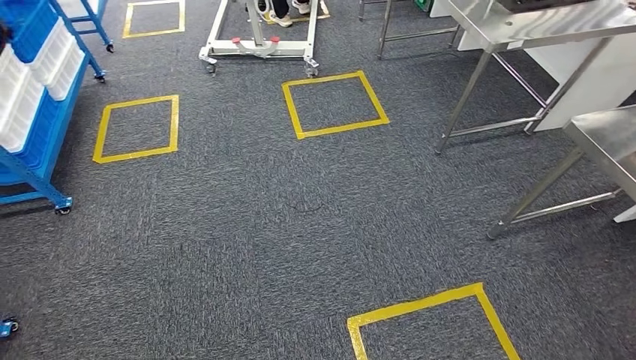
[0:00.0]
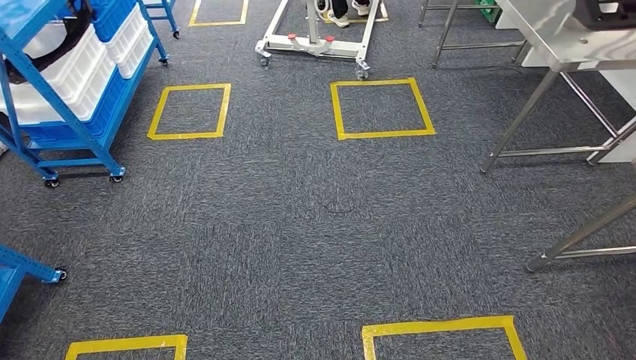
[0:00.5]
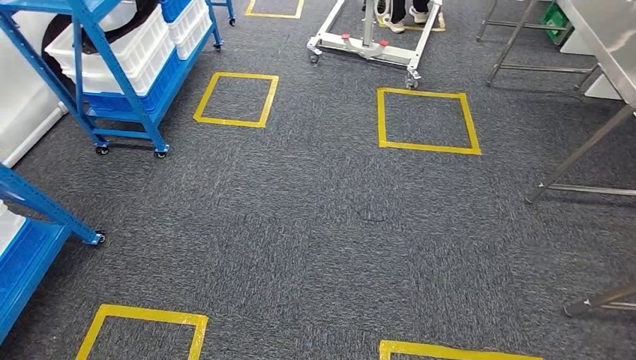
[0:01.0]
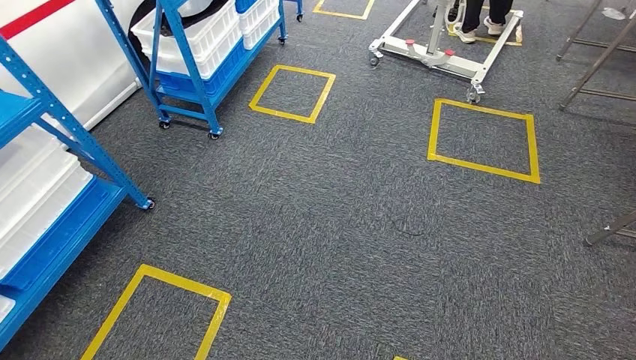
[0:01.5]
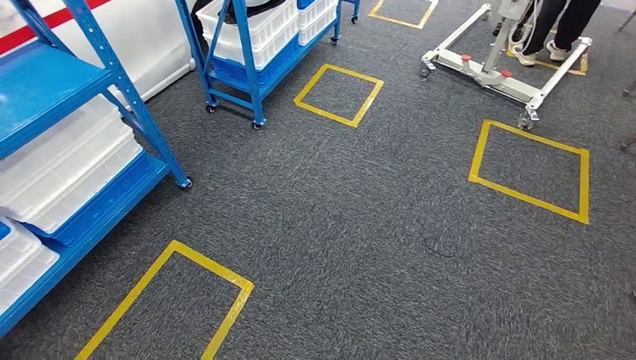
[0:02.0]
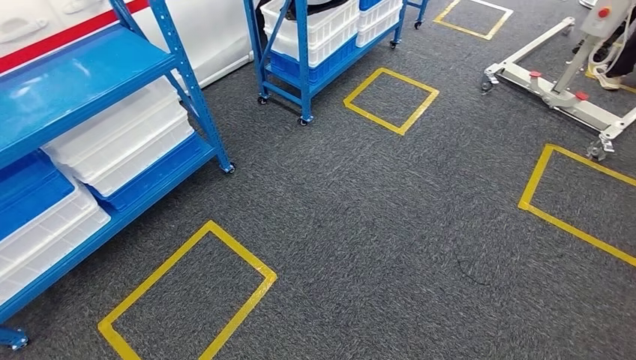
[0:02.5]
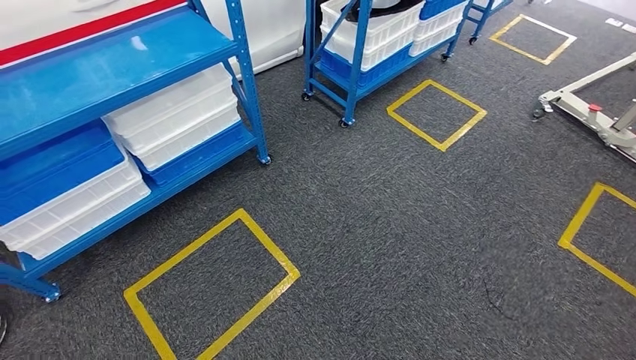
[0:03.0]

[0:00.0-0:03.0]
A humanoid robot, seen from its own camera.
Step, 0:00.0 to 0:03.0: Return to the initial position at the shelf.

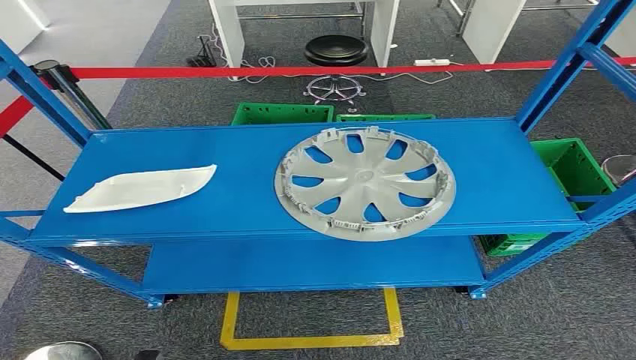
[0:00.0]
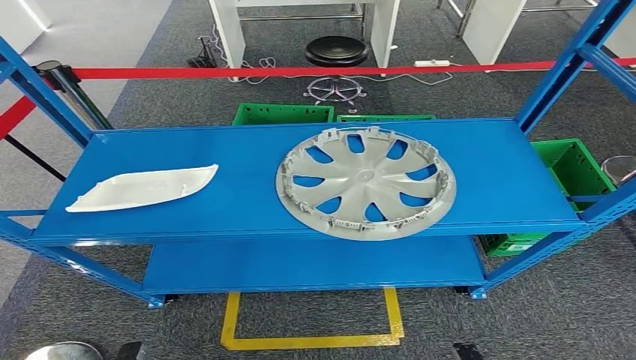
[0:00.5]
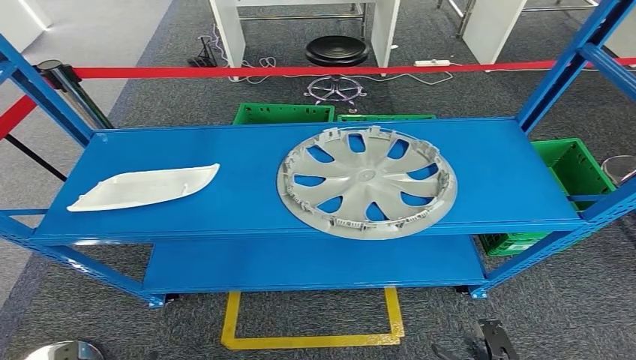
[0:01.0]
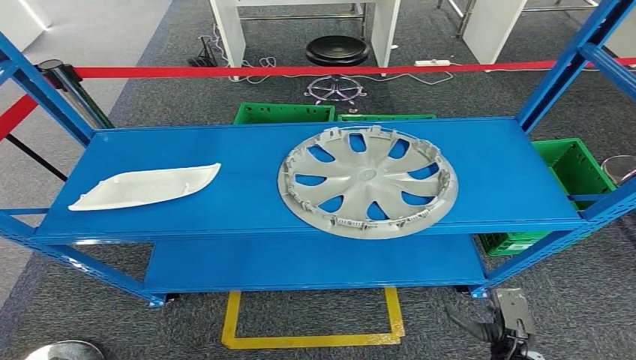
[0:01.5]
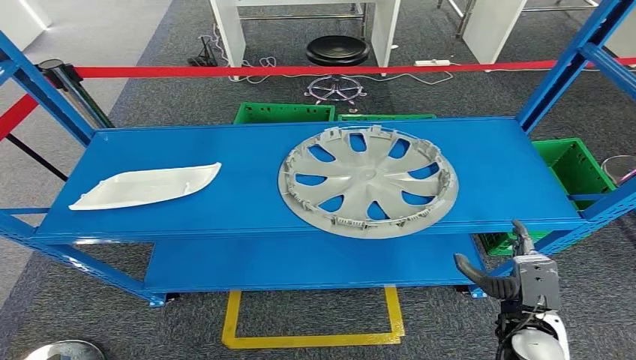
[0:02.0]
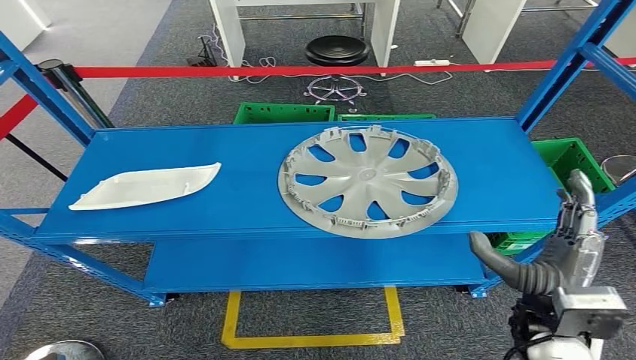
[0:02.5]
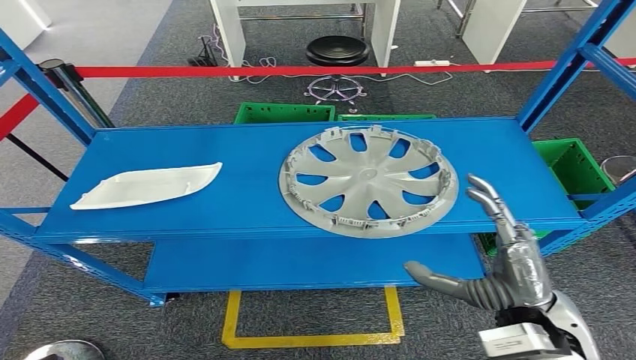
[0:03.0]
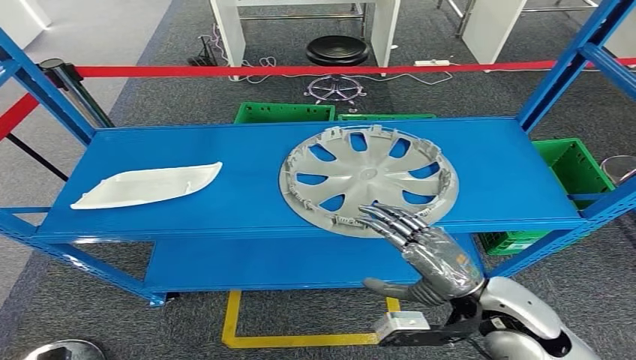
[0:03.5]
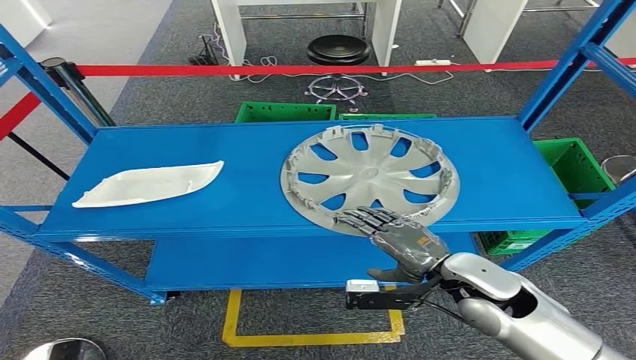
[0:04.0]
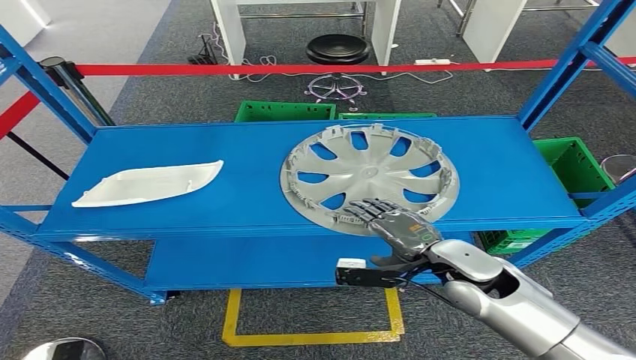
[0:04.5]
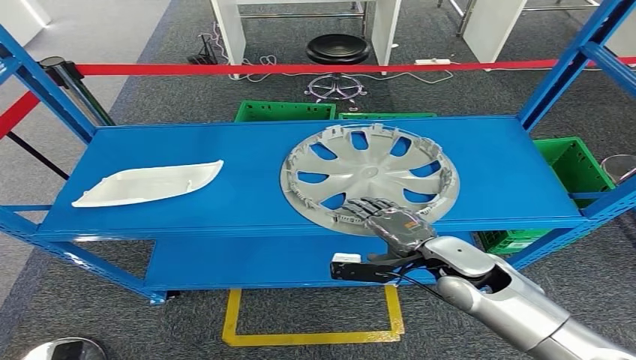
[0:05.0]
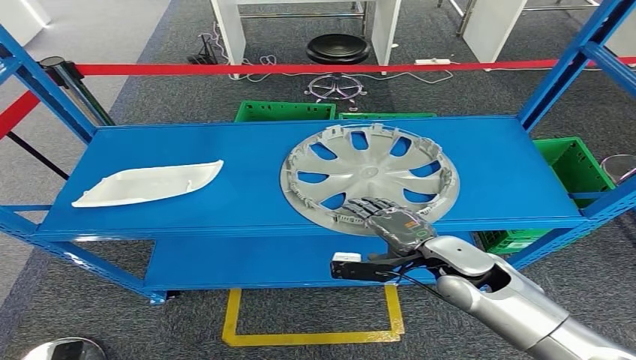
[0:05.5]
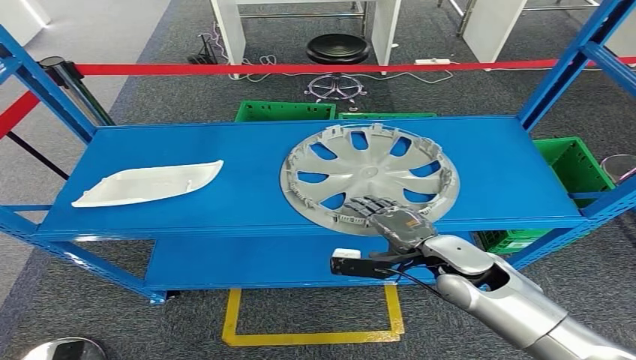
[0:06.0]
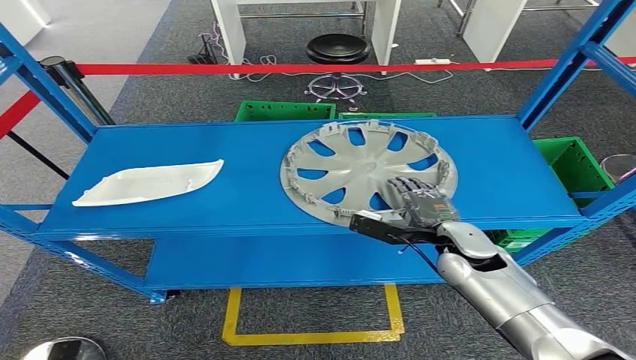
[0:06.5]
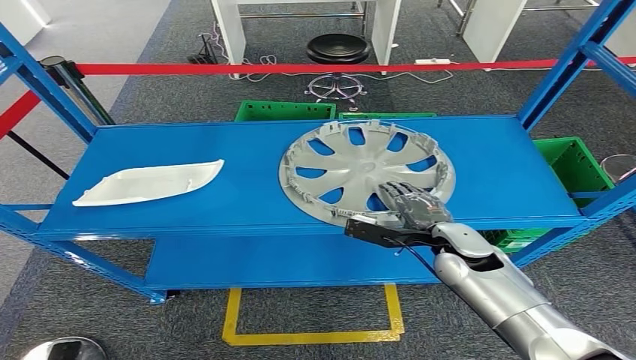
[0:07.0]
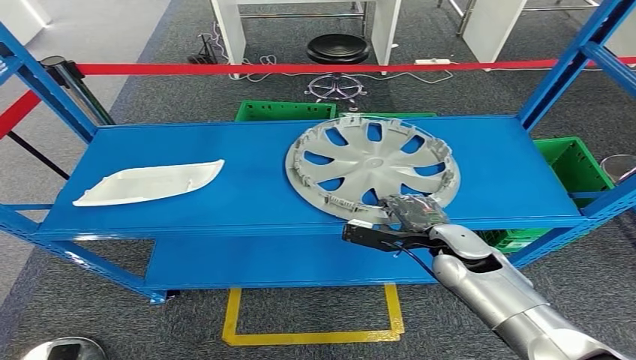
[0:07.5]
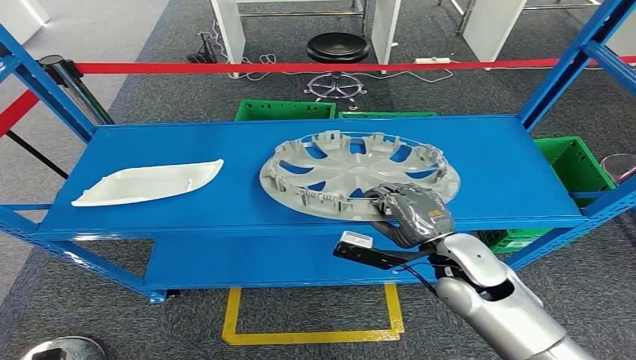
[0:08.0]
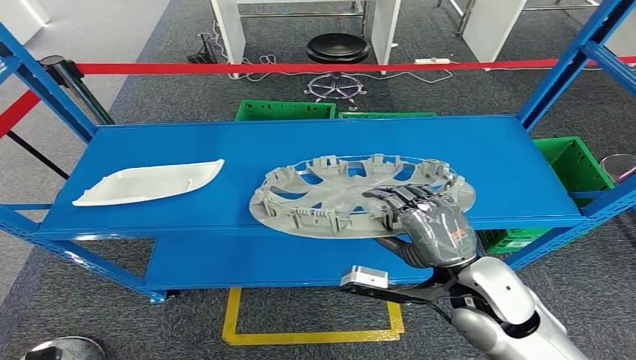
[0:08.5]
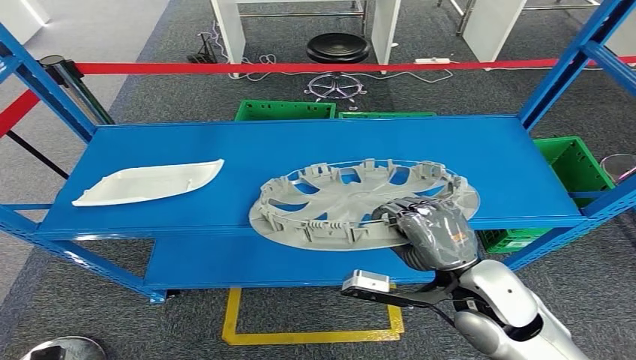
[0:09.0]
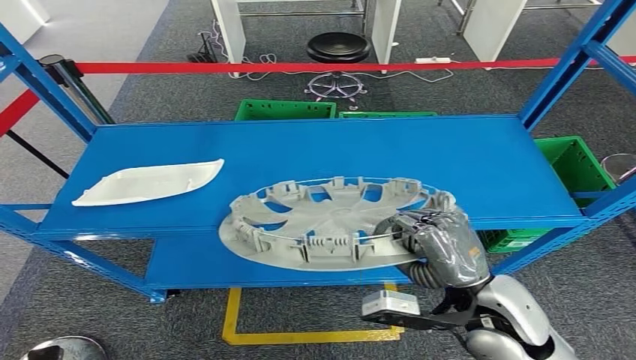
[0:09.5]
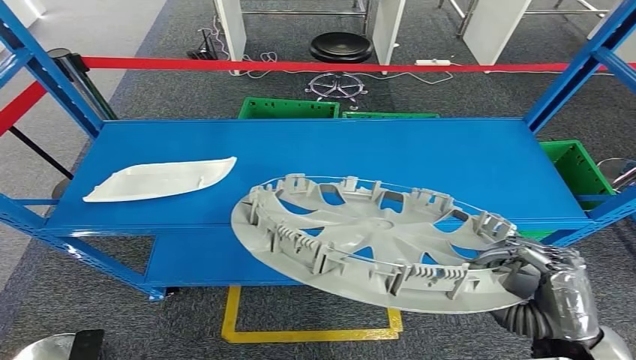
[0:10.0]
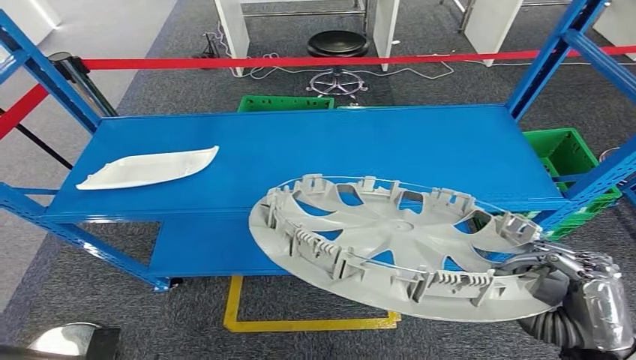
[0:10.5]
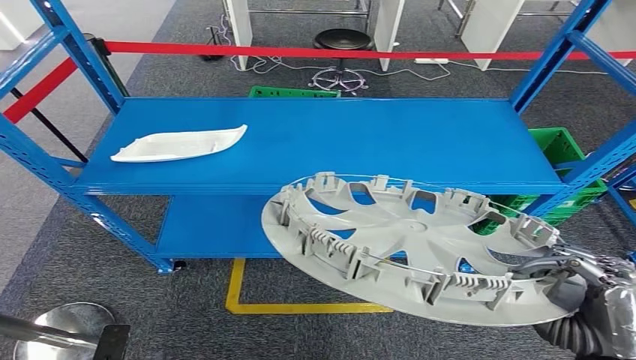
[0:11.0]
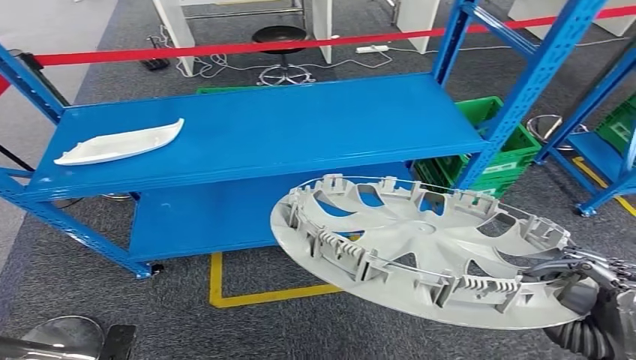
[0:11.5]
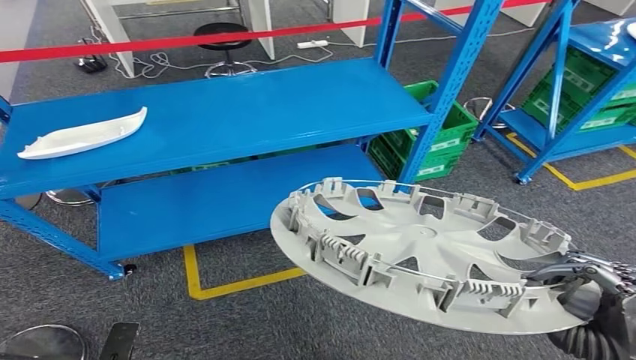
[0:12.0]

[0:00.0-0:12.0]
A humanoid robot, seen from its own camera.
Step, 0:00.0 to 0:11.0: Pick up the small parts from the shelf.
0:02.0 to 0:04.0: The right hand goes approximately 15 cm upward, forward and to the left.
0:04.0 to 0:06.0: There are only small adjustments of the hands.

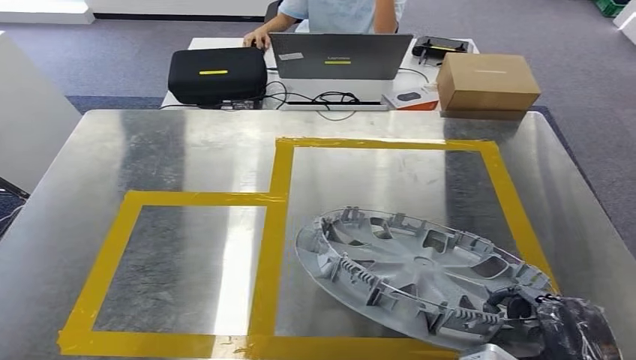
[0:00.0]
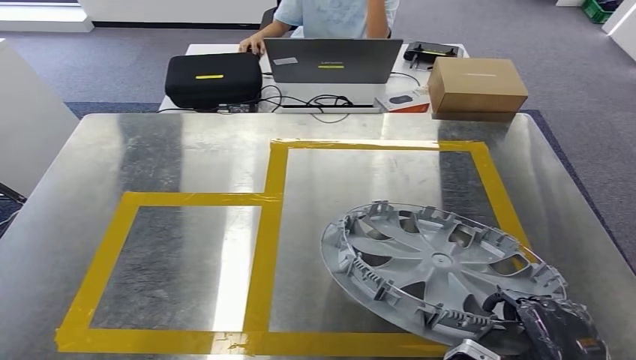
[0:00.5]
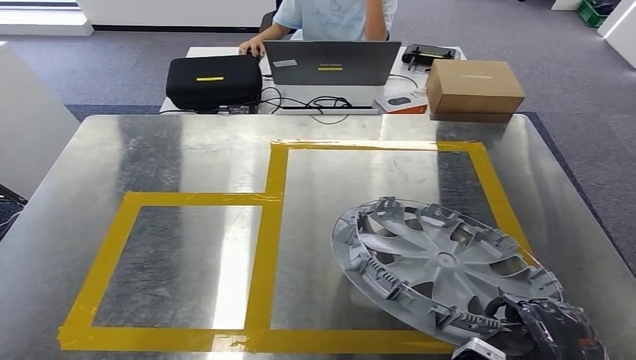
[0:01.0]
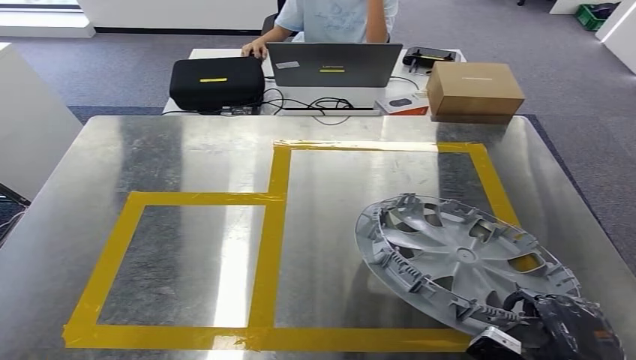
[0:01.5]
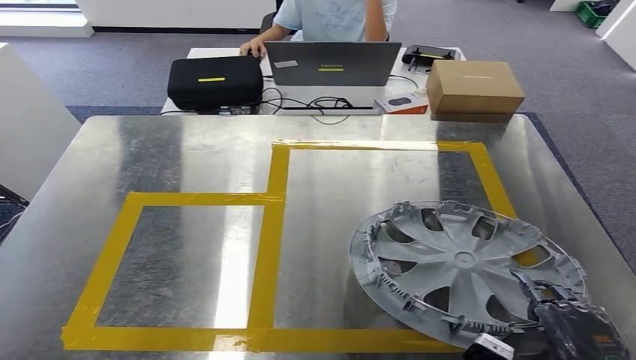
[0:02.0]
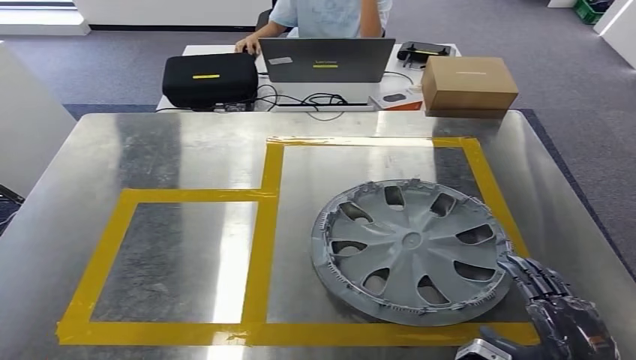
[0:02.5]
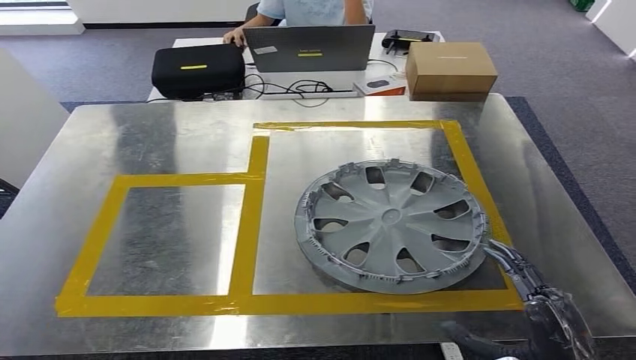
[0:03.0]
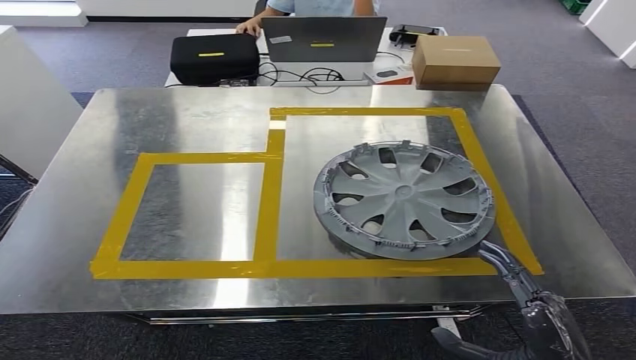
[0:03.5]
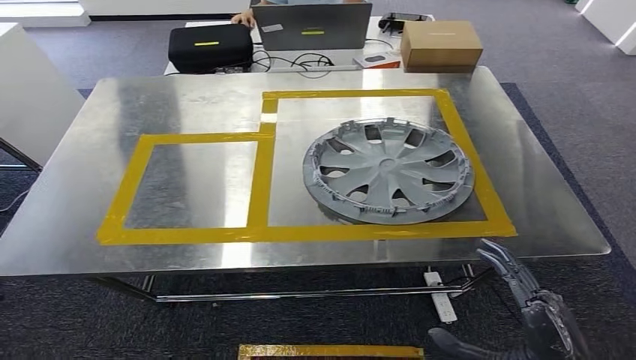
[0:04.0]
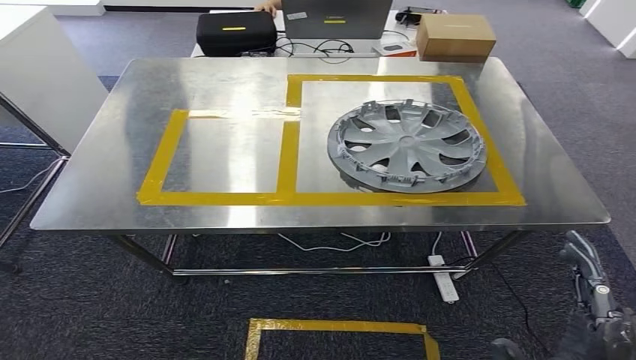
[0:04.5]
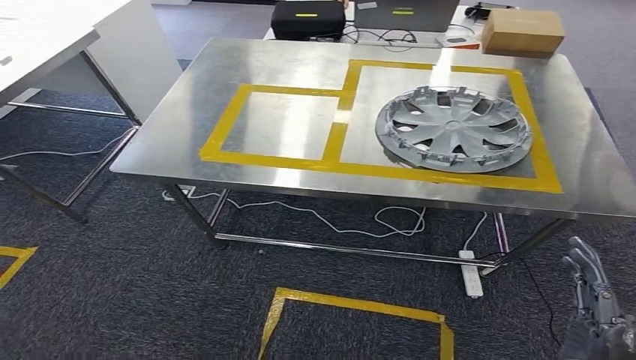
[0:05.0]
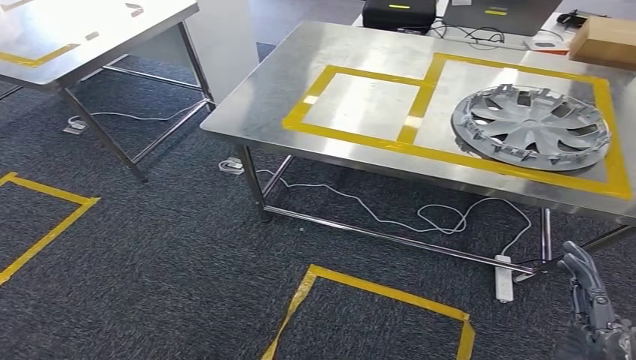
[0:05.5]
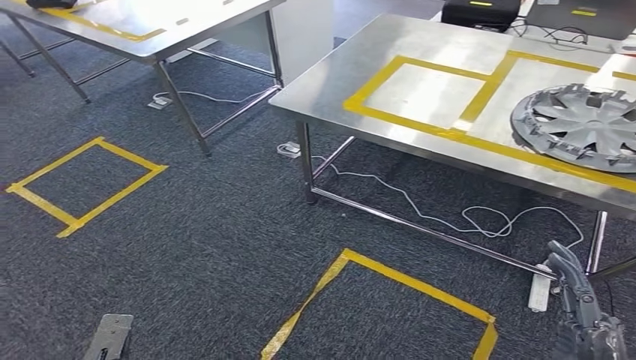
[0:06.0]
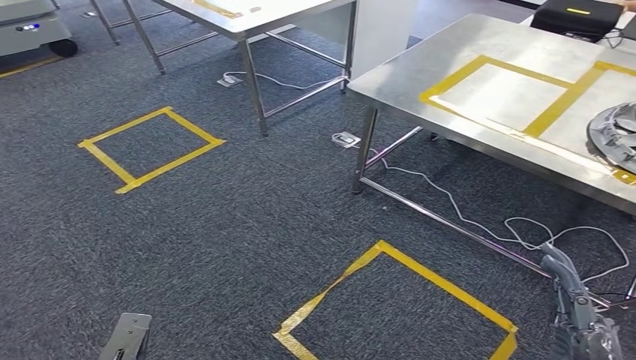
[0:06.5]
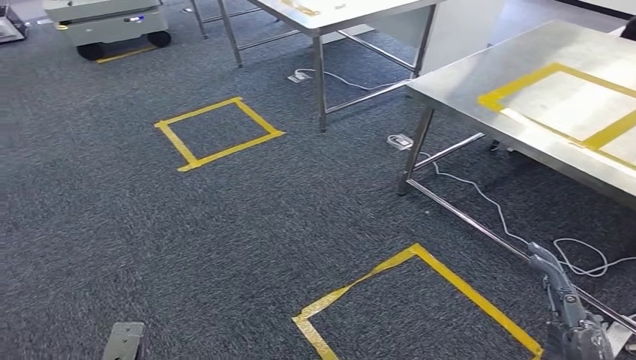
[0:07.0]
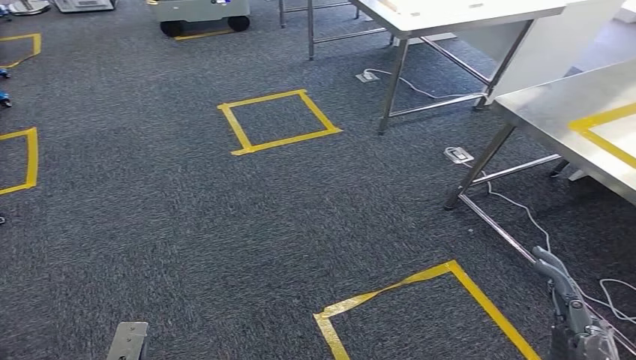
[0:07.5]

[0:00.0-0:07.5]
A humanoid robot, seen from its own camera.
Step, 0:00.5 to 0:04.0: Insert the small parts into the corresponding slots on the workbench.
